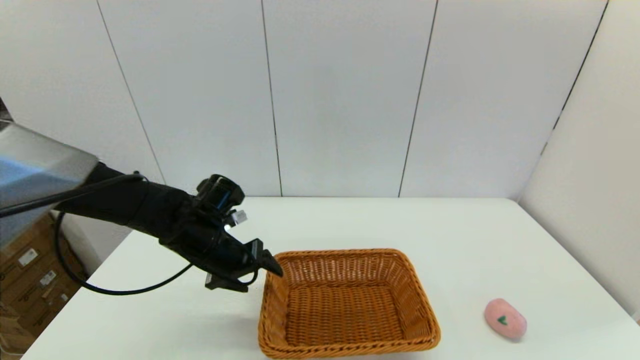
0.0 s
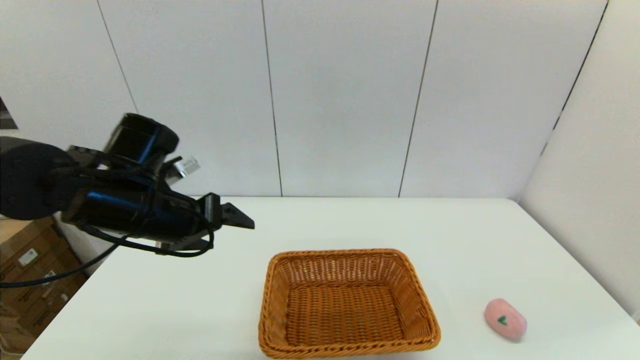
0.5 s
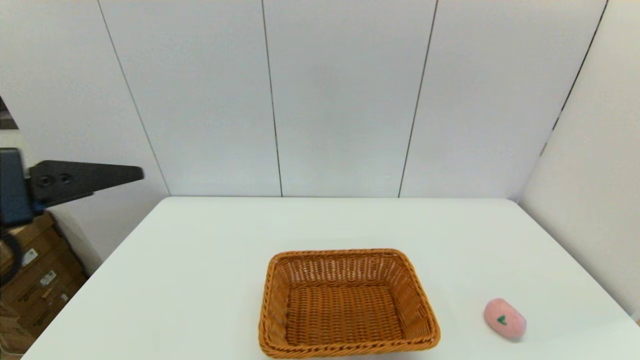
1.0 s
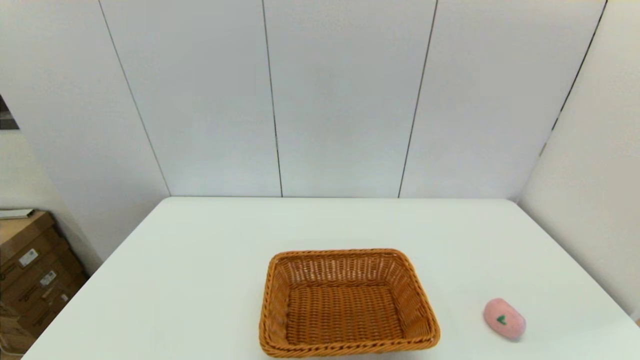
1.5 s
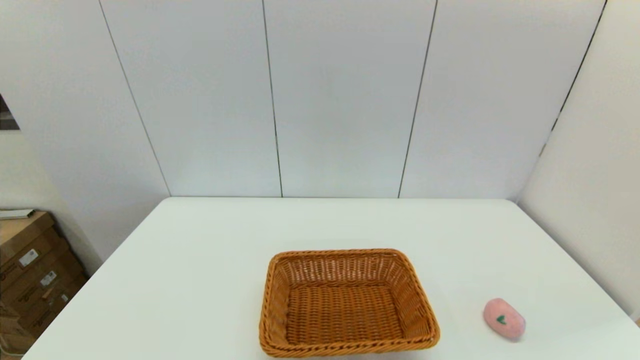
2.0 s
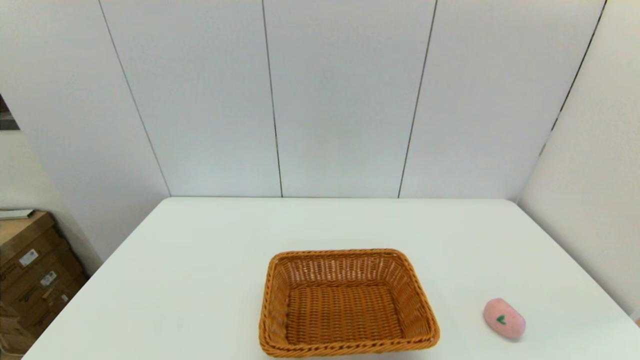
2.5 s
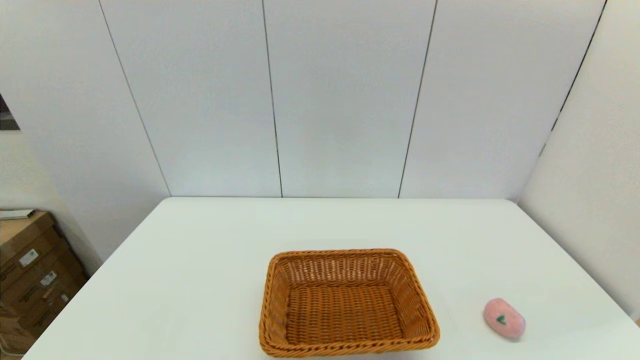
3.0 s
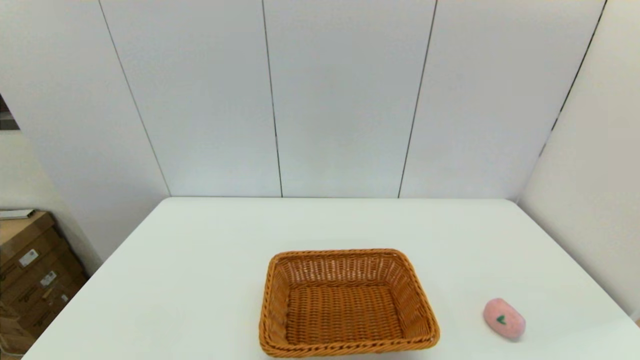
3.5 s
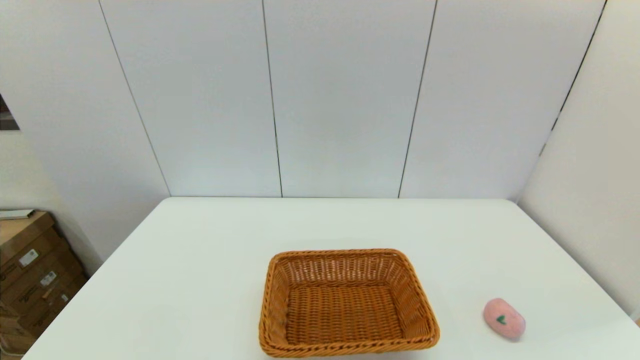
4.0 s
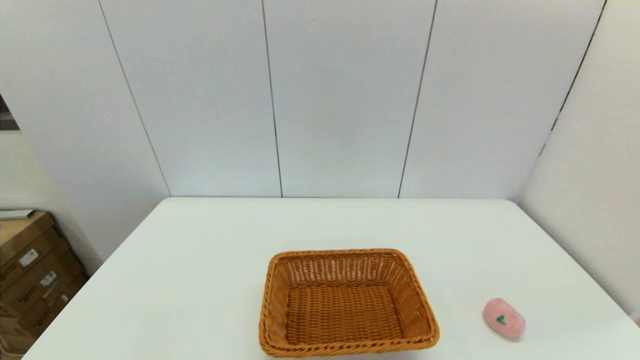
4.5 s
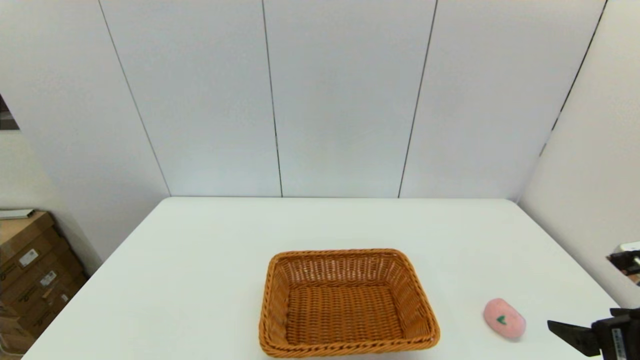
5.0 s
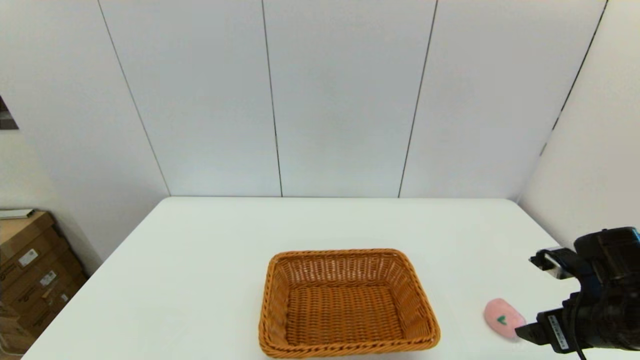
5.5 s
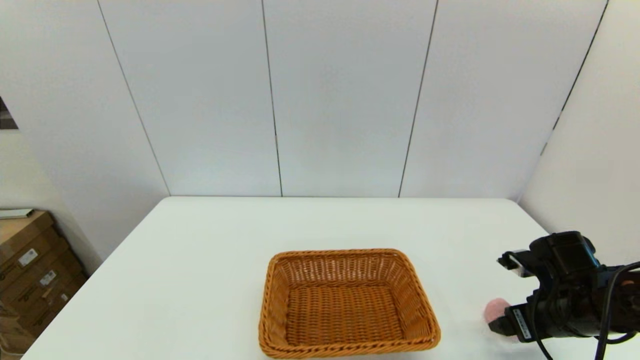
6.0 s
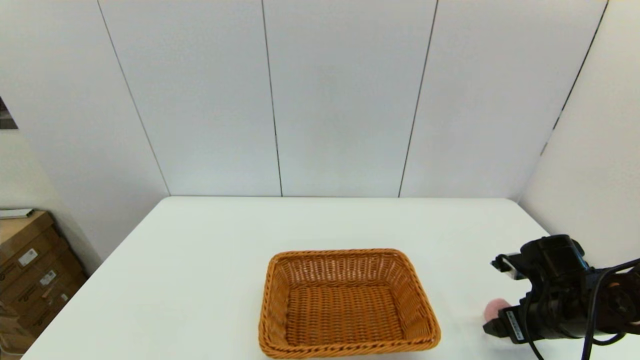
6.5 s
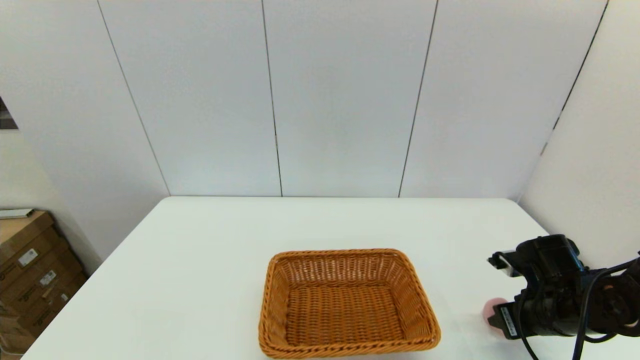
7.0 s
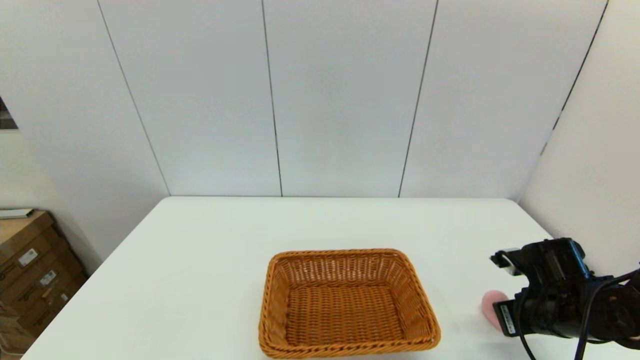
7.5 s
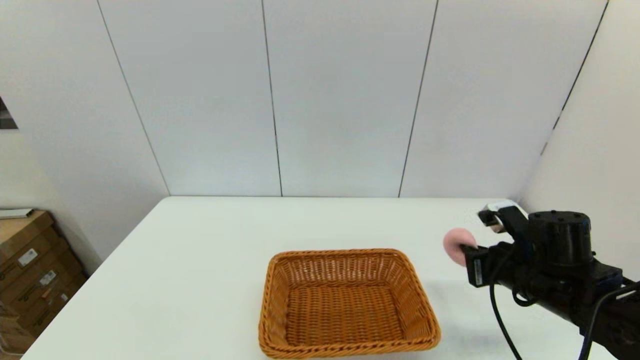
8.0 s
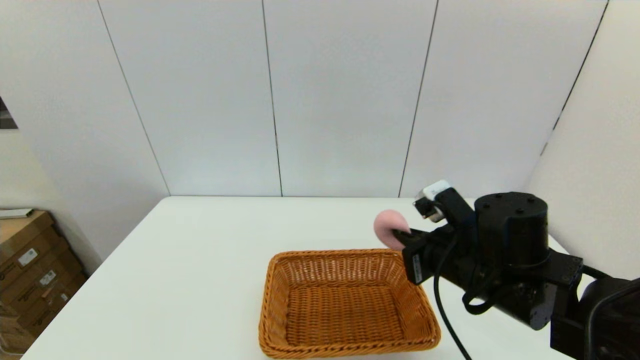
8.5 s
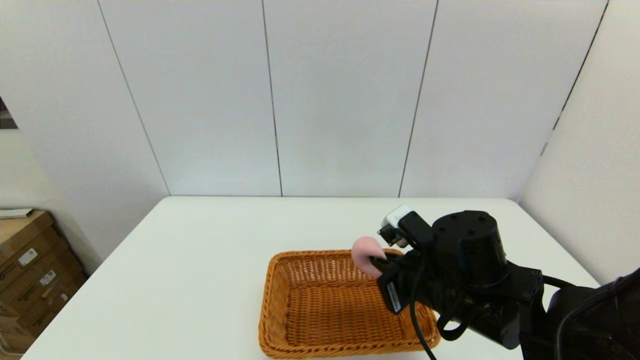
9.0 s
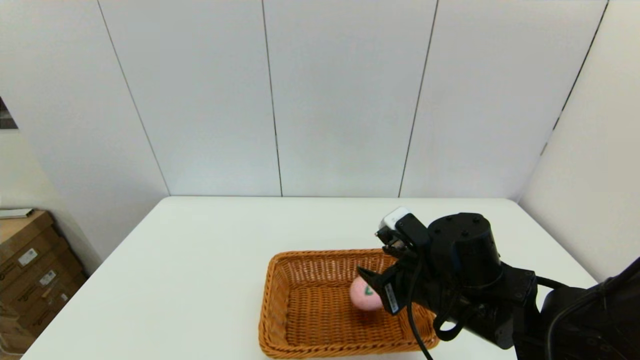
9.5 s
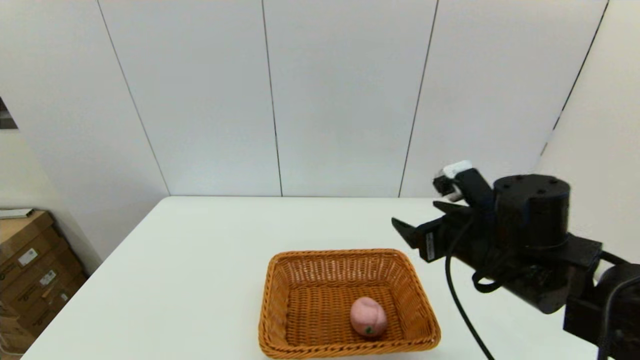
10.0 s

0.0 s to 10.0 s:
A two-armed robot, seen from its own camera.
Step, 0.0 to 7.0 s: Grasp the peach with the right gripper.
Step, 7.5 to 9.5 s: Place the peach into the light basket with the right gripper.
0.0 to 2.0 s: The left gripper goes some 35 cm backward.
4.0 to 6.0 s: The right gripper shifts approximately 25 cm forward.
6.0 to 8.0 s: The right gripper heads to the left, covering about 5 cm, and closes.
8.0 to 10.0 s: The right gripper goes about 10 cm to the left and upward, and opens.

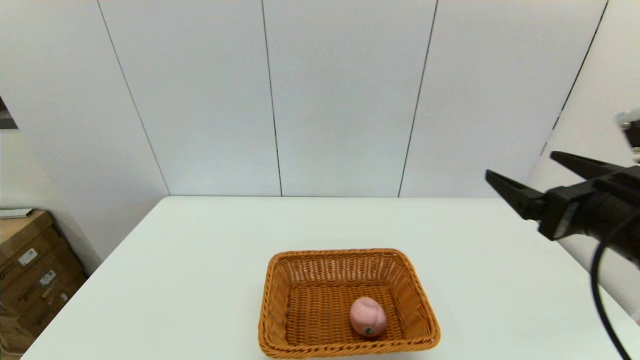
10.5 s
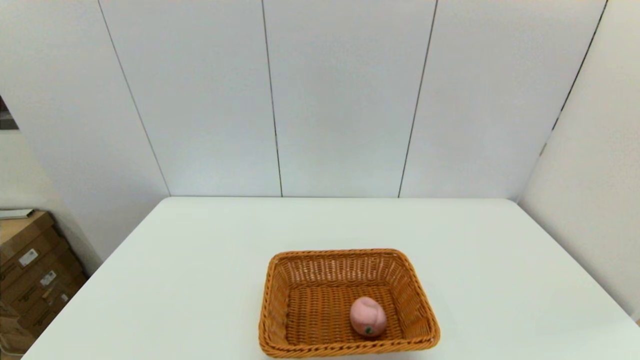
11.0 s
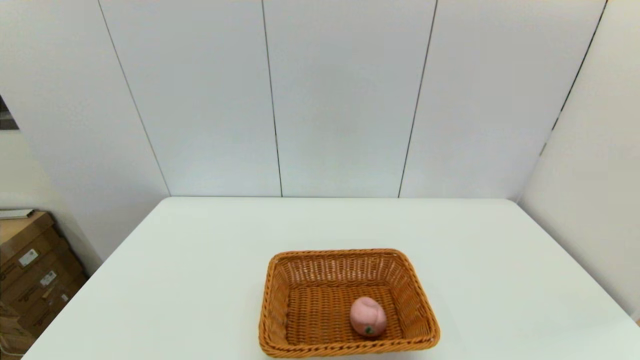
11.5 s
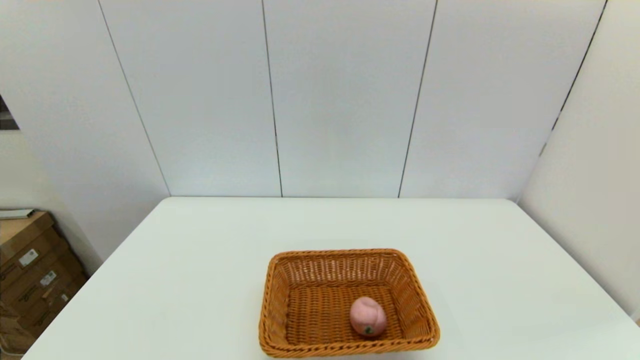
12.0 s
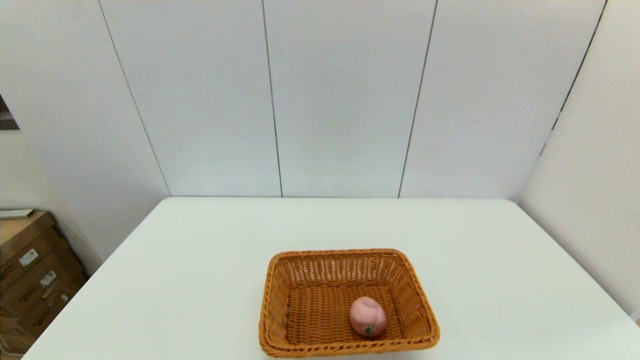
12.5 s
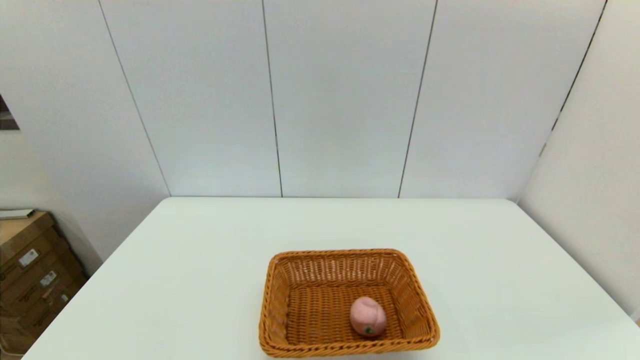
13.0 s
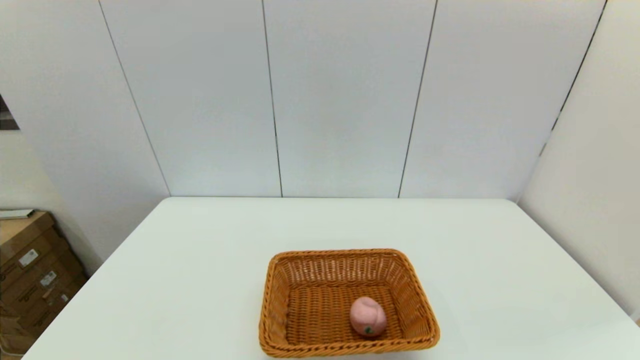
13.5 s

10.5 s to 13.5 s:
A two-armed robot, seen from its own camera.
10.5 to 12.0 s: The right gripper is displaced backward, downward and to the right by approximately 25 cm.

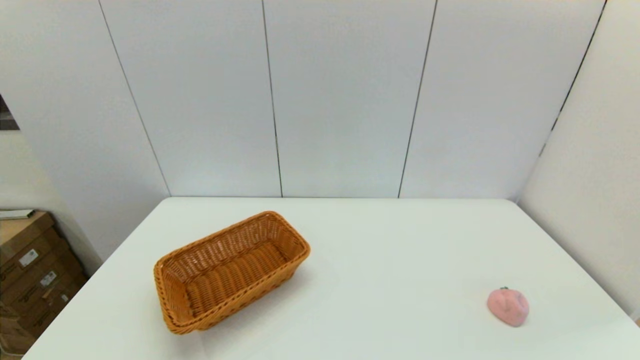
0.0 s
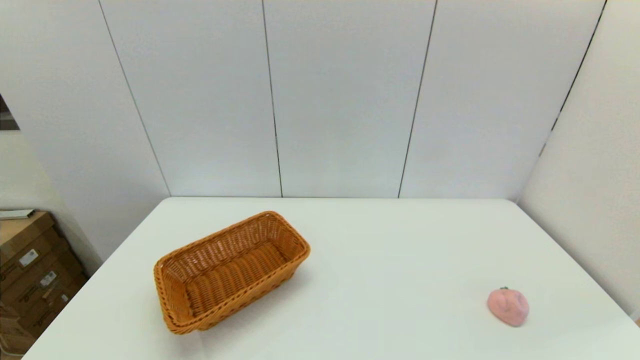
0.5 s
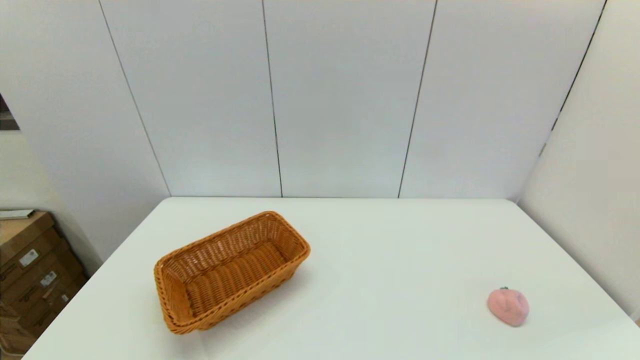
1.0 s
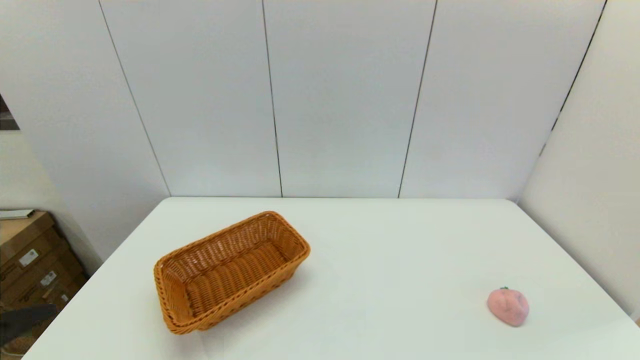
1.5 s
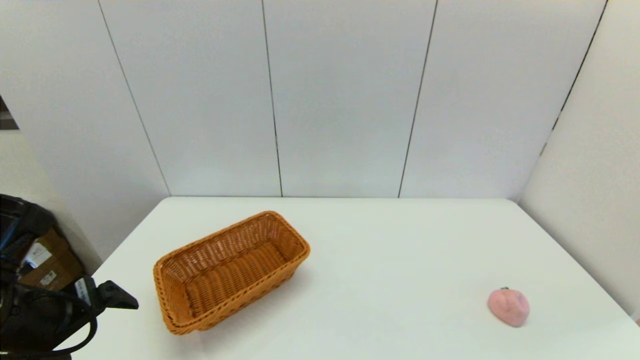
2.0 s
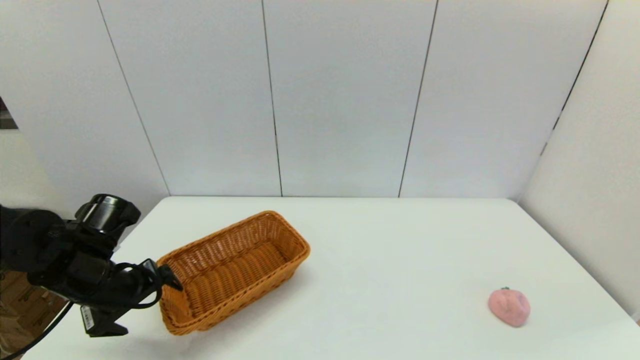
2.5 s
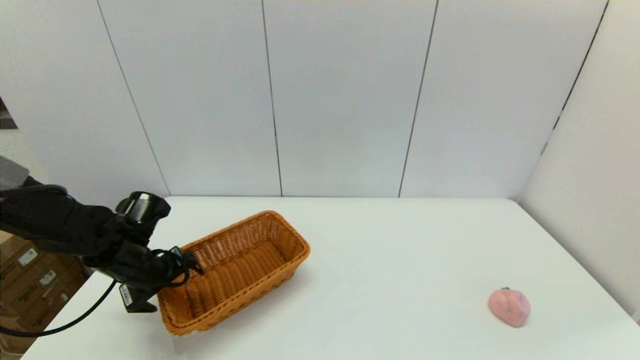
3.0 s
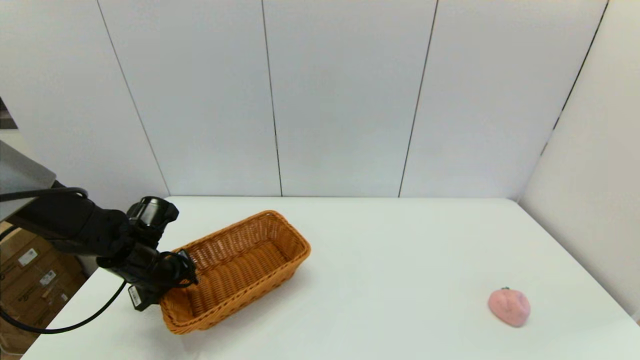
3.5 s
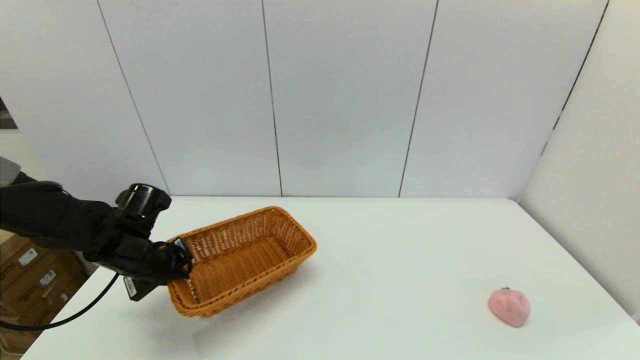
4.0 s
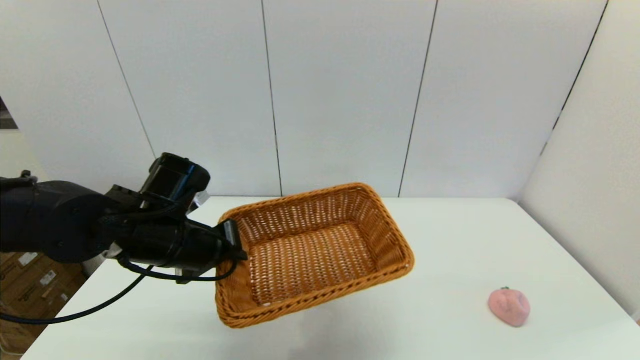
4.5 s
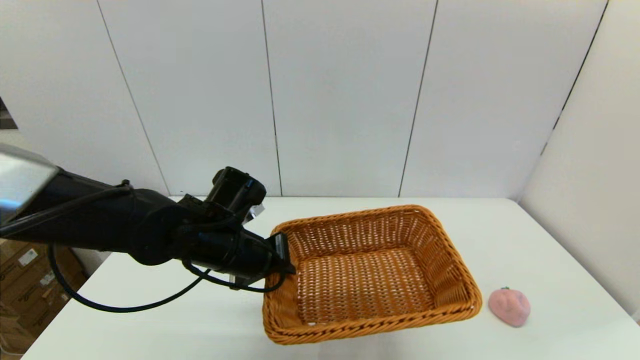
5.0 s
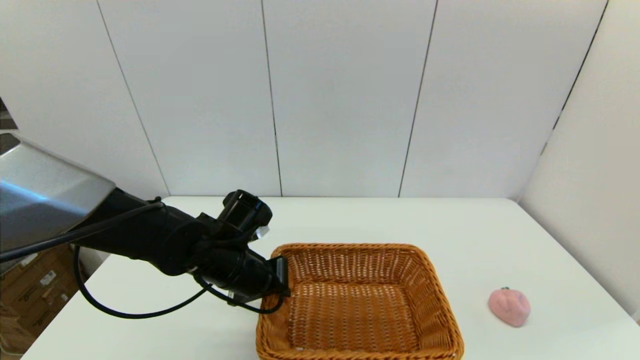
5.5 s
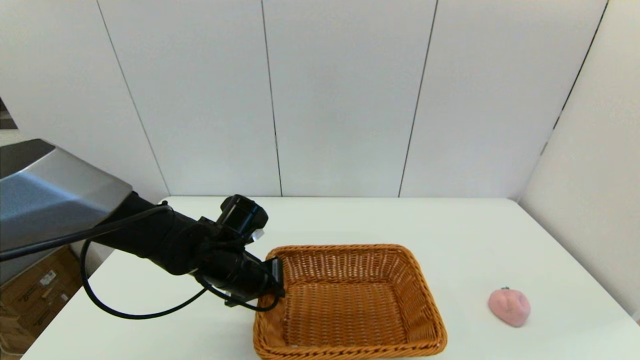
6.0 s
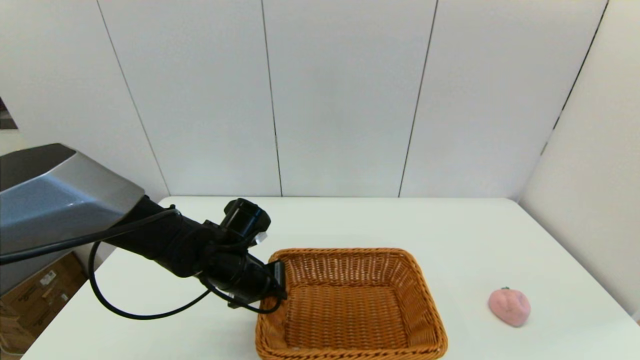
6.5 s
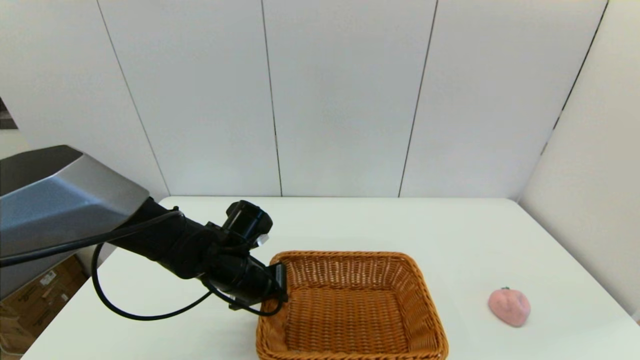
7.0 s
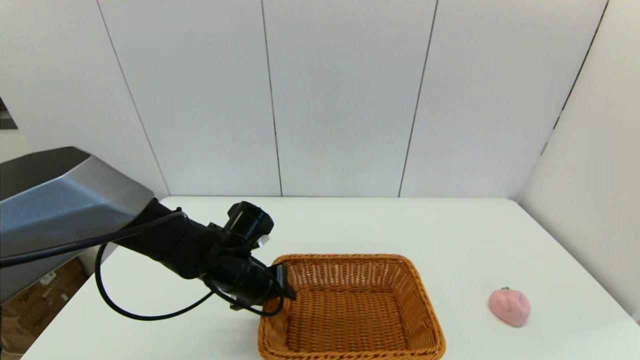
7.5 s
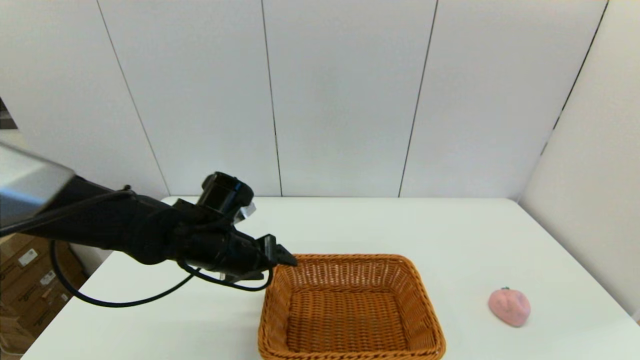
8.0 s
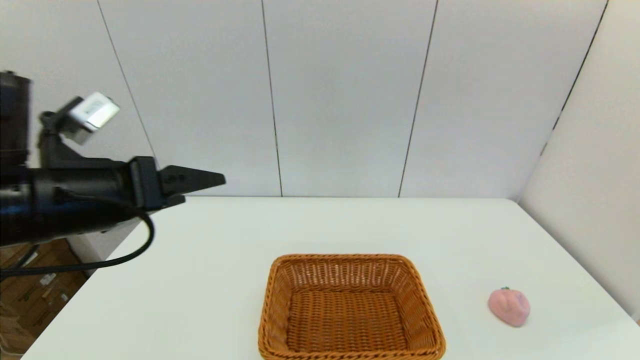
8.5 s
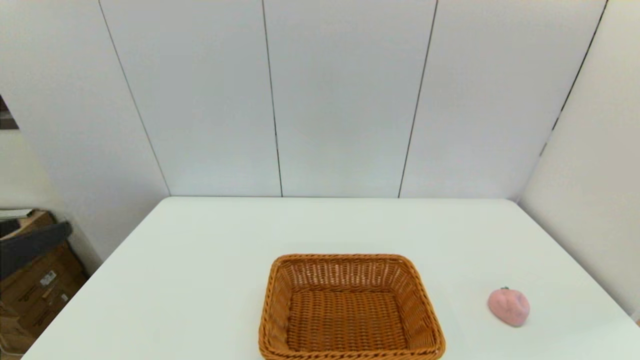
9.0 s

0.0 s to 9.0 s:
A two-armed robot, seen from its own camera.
Step, 0.0 to 3.5 s: Grasp the light basket with the left gripper.
Step, 4.0 to 7.5 s: Place the light basket on the middle of the table with the left gripper.
0.0 to 2.0 s: The left gripper is displaced forward and upward by roughly 20 cm.
2.0 to 4.5 s: The left gripper shifts some 15 cm to the right and forward, and closes its fingers.
4.5 to 7.0 s: The left gripper is displaced downward by roughly 10 cm.
7.0 to 9.0 s: The left gripper heads backward, upward and to the left, covering about 35 cm, and opens.
